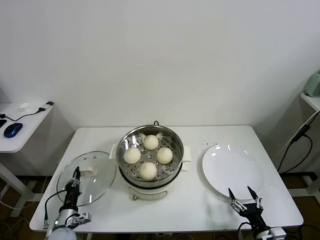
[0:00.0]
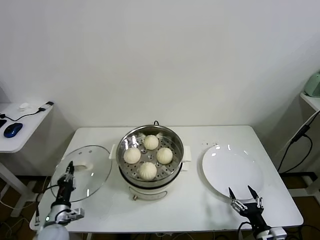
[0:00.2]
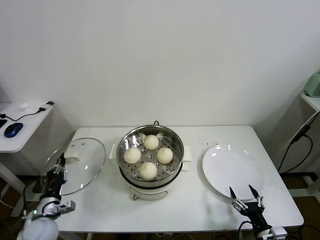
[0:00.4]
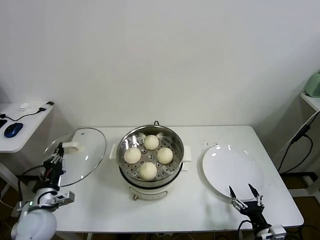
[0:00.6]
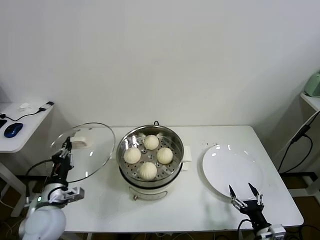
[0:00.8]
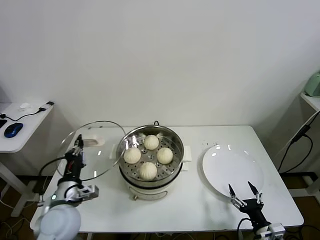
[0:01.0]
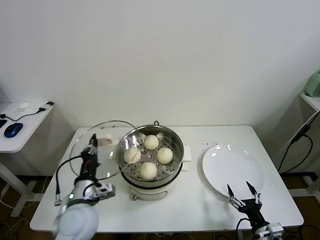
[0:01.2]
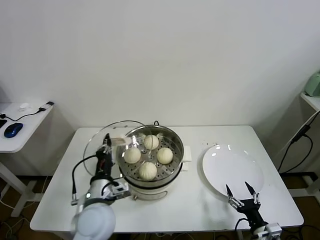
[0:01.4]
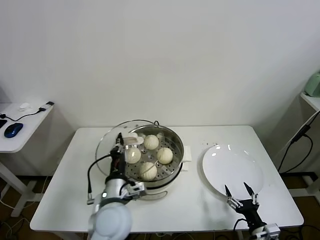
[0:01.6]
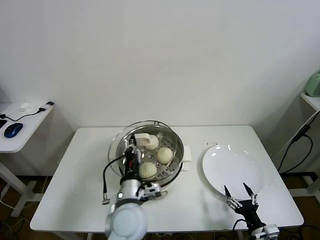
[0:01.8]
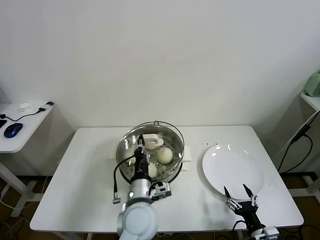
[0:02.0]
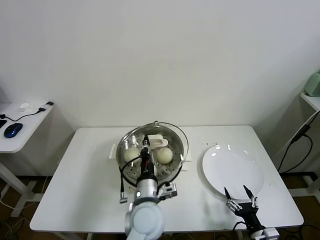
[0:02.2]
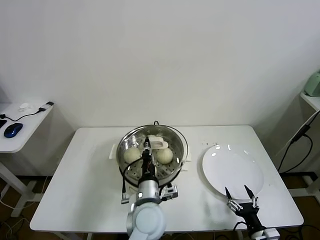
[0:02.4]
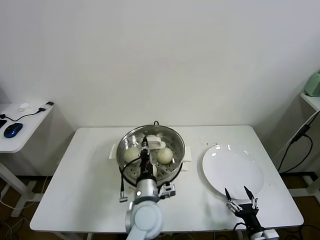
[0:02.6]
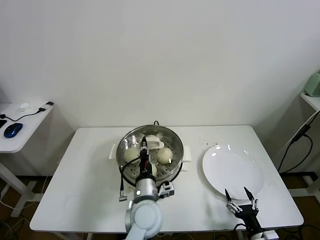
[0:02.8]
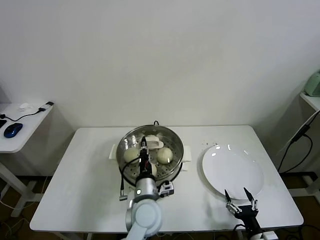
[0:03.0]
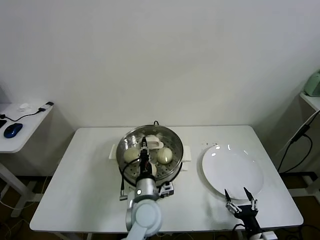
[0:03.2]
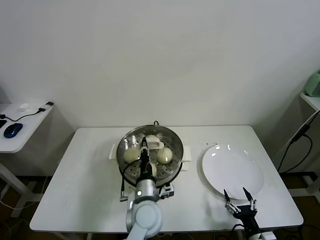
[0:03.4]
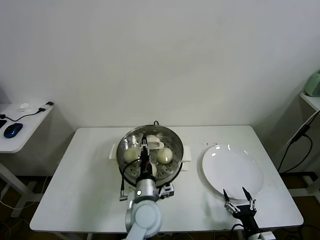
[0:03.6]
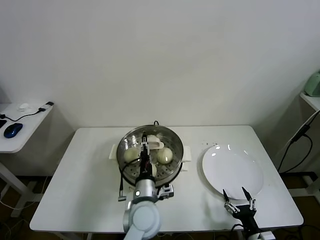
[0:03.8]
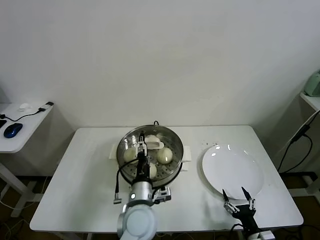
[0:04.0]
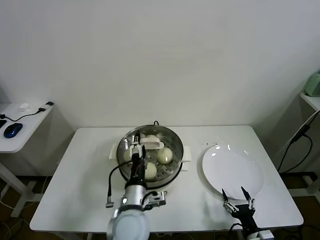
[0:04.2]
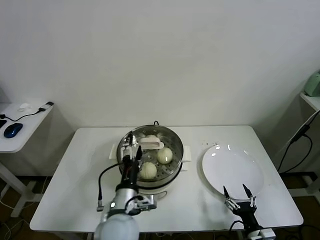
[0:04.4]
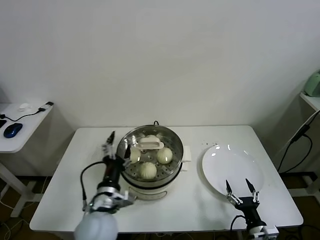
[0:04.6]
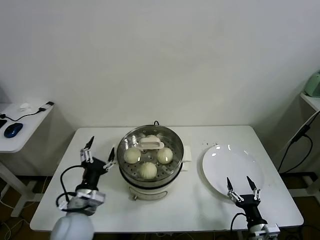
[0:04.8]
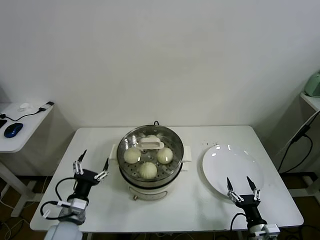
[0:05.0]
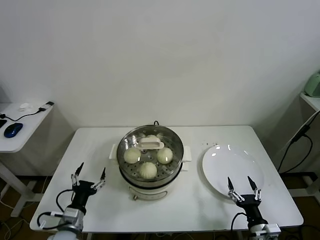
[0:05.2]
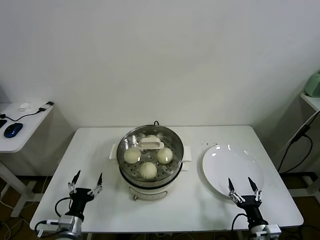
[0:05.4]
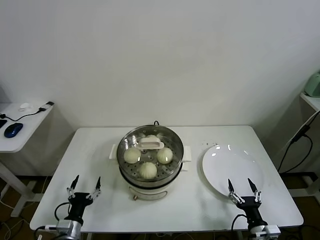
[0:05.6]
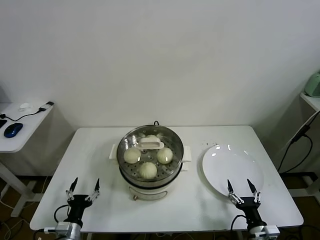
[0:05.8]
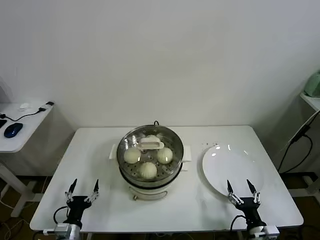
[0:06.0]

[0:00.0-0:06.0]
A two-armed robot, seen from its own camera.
Task of the whole recording: take steamed baozi put them in steamer.
Step, 0:00.0 to 0:04.0: Place the pot lid on the steamer with left gripper.
0:00.0 to 0:01.6: The left gripper shifts approximately 30 cm upward and to the right.
0:01.6 to 0:03.0: The left gripper is displaced to the right by approximately 10 cm.
0:03.0 to 0:04.4: The left gripper travels to the left by about 5 cm, and opens its fingers.
0:04.4 to 0:06.0: The left gripper travels to the left and downward by roughly 30 cm.

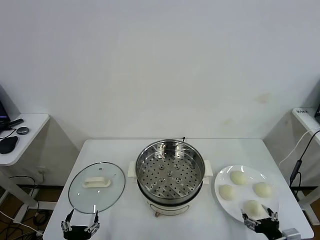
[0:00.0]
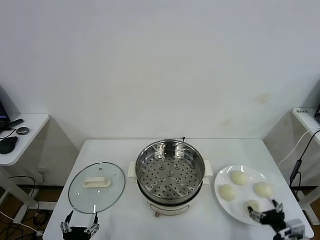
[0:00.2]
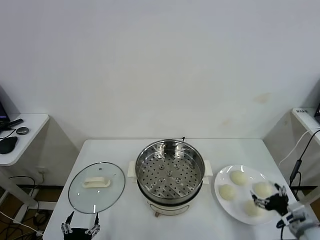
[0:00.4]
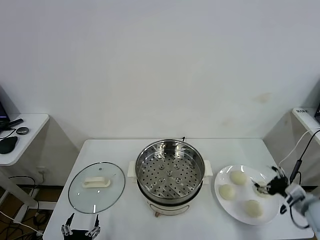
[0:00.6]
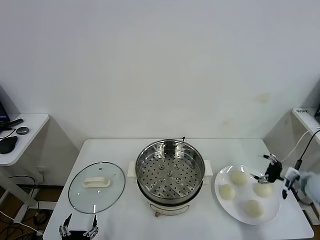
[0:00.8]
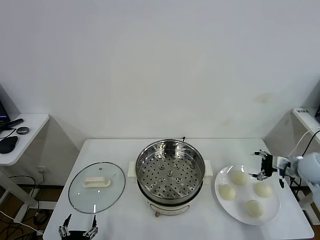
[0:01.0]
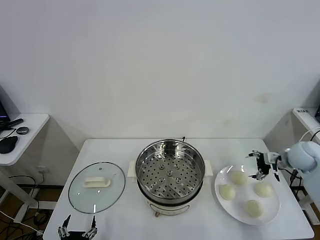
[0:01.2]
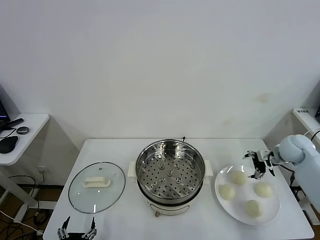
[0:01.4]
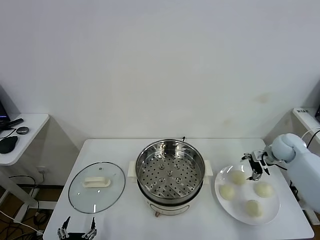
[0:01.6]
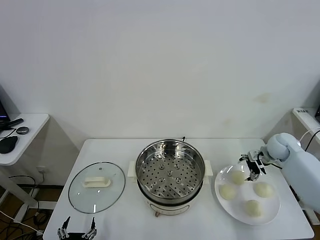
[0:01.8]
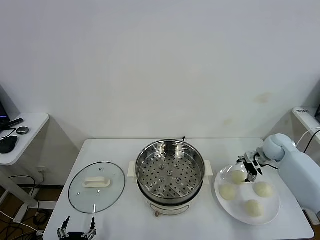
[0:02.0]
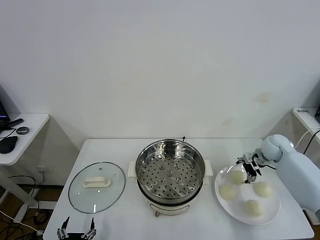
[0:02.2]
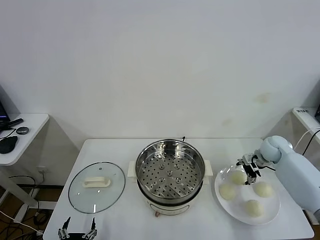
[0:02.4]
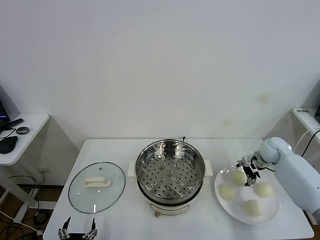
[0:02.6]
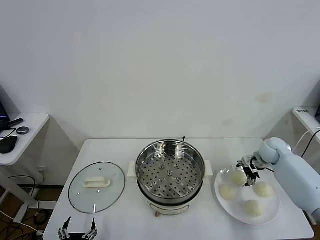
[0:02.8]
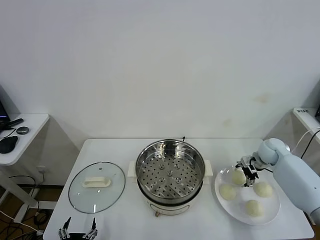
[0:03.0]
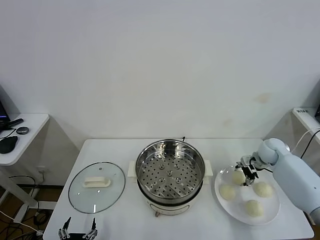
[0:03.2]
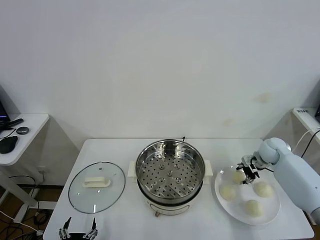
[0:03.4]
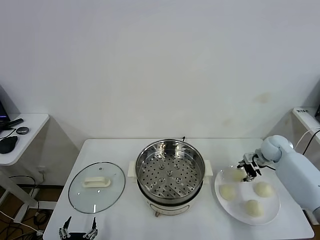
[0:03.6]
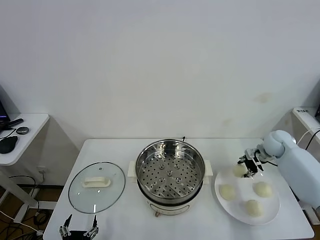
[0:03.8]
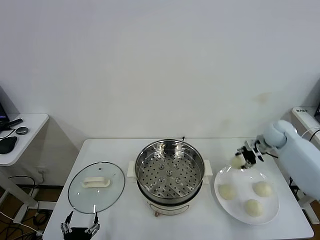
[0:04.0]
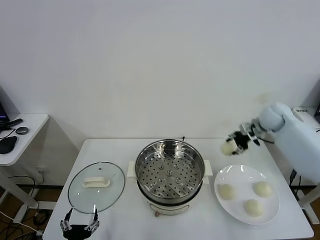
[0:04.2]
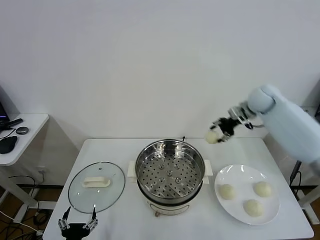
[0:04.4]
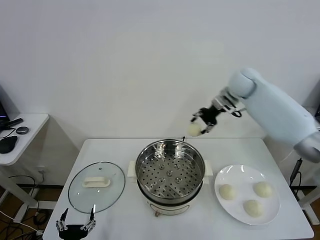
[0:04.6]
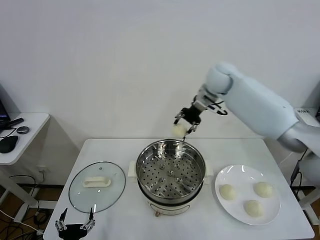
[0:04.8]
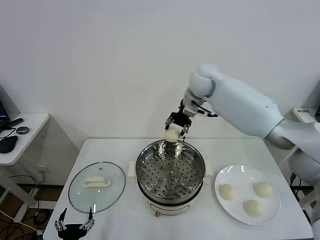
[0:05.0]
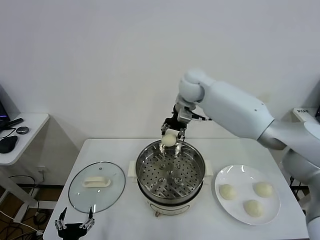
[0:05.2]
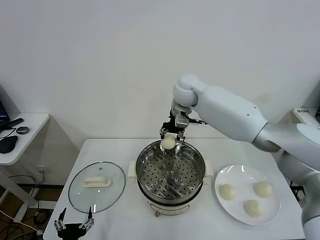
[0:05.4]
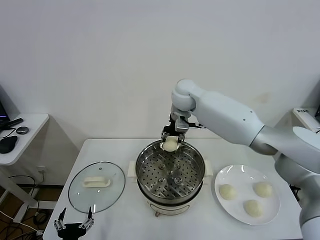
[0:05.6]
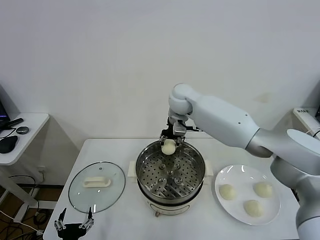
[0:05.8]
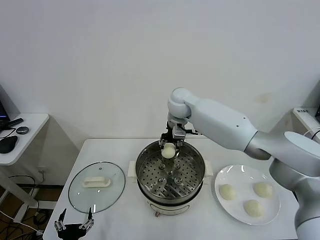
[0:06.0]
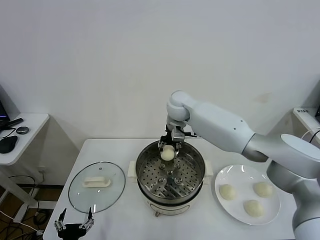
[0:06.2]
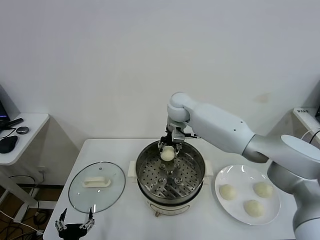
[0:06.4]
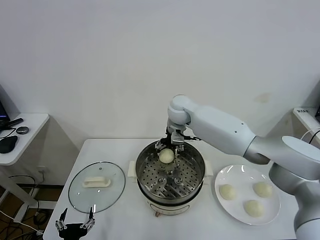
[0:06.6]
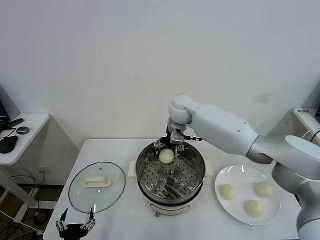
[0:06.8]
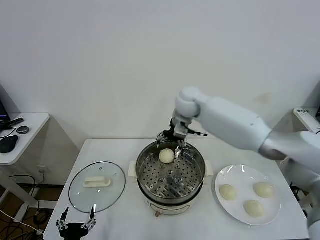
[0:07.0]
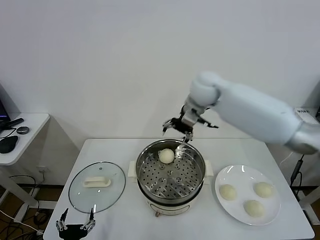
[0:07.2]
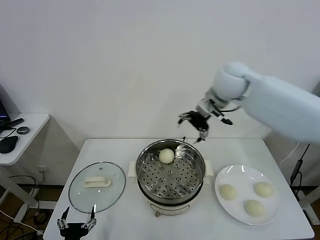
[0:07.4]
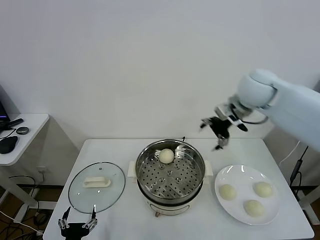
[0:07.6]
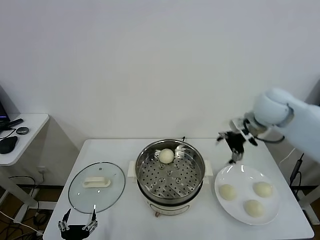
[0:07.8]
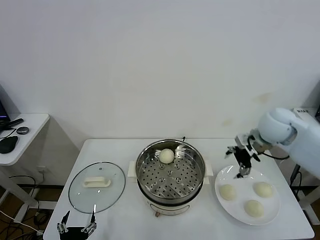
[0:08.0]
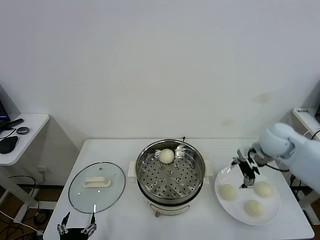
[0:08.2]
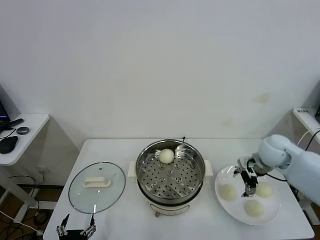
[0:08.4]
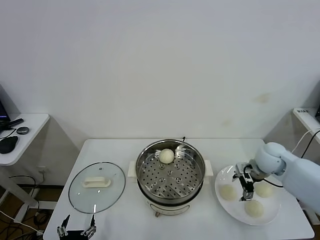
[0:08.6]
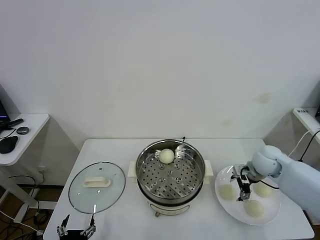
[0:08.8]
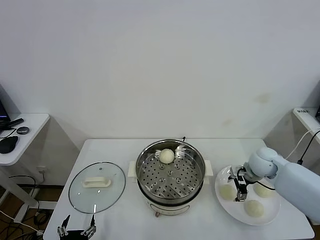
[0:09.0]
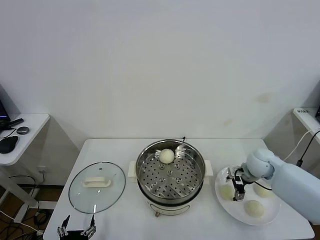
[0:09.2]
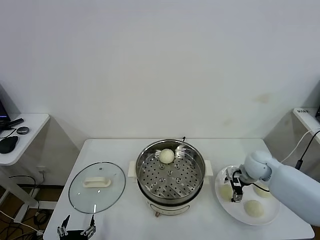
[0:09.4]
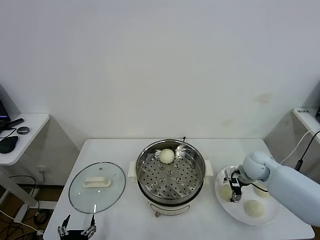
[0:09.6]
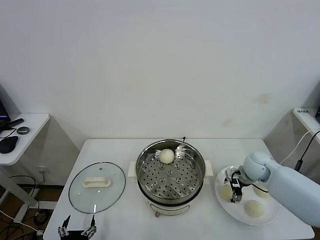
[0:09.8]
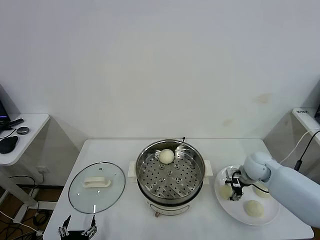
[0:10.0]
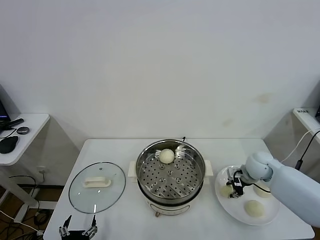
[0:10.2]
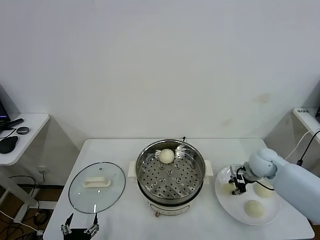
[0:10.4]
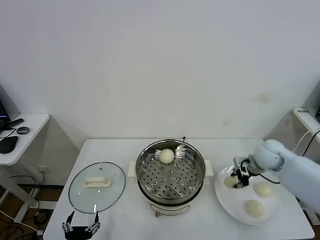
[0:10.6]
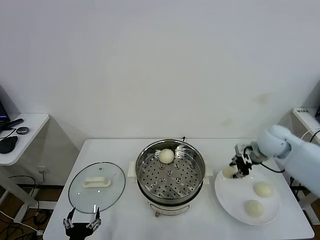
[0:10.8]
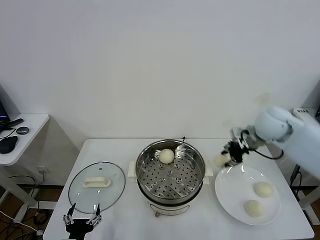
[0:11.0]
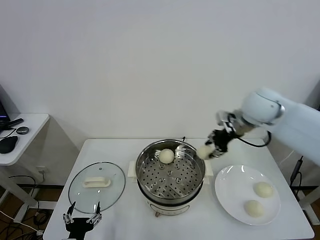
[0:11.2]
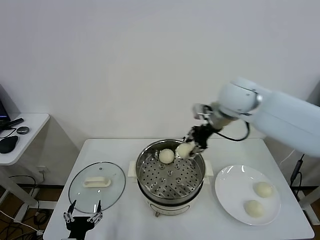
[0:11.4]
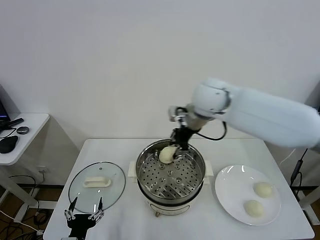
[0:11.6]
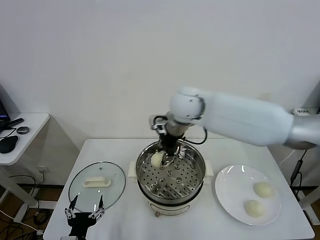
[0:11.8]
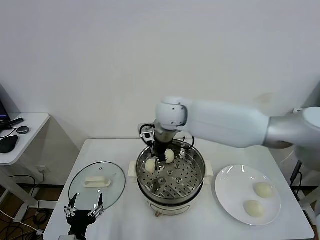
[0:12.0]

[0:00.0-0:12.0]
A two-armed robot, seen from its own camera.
Task of the whole recording: take steamed baozi put them in steamer.
Step, 0:00.0 to 0:03.2: Grasp the baozi in the plate with right gripper.
Step, 0:03.6 to 0:06.8: Place the baozi on the steamer with right gripper.
Step, 0:07.0 to 0:10.0: Grasp the baozi in the plate with right gripper.
0:01.6 to 0:03.0: The right gripper moves some 5 cm.
0:03.0 to 0:04.4: The right gripper shifts approximately 20 cm upward and to the left, and closes its fingers.
0:04.4 to 0:06.0: The right gripper shifts some 25 cm to the left.
0:06.0 to 0:07.6: The right gripper shifts some 25 cm to the right, upward and backward, and opens up.
0:07.6 to 0:09.0: The right gripper goes about 25 cm downward.
0:09.0 to 0:10.4: The right gripper closes.
0:10.4 to 0:12.0: The left gripper moves about 5 cm; the right gripper shifts about 40 cm to the left and upward.

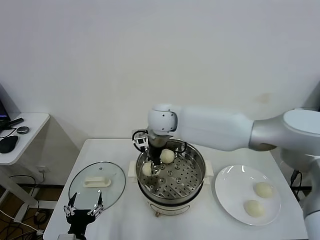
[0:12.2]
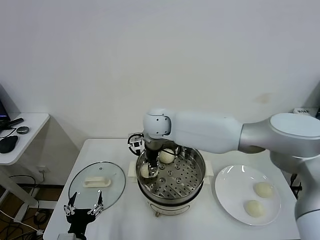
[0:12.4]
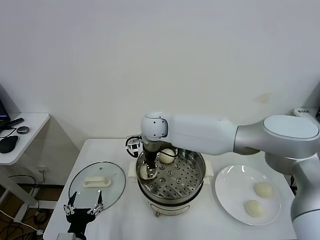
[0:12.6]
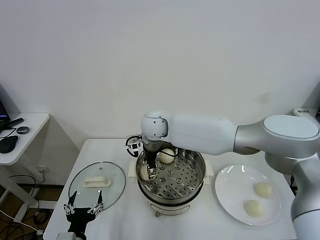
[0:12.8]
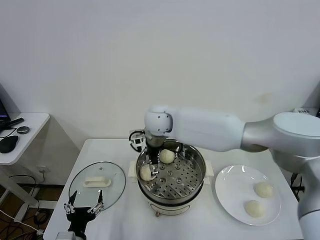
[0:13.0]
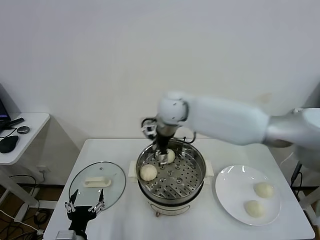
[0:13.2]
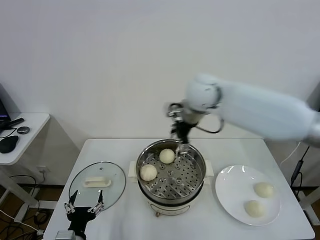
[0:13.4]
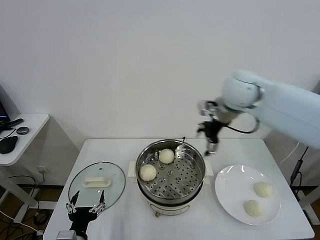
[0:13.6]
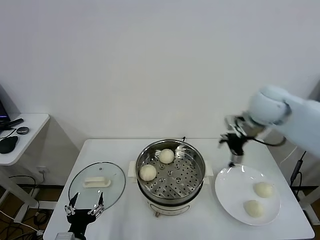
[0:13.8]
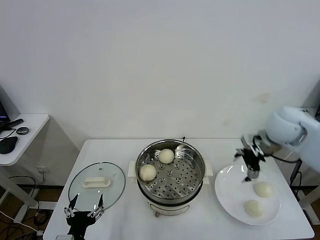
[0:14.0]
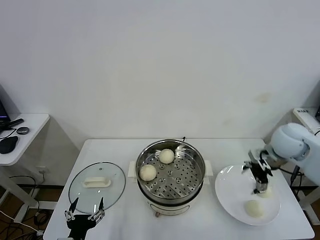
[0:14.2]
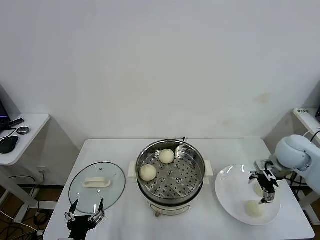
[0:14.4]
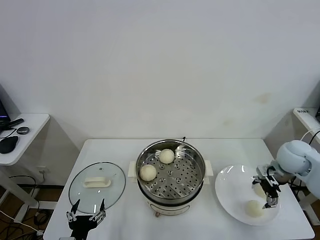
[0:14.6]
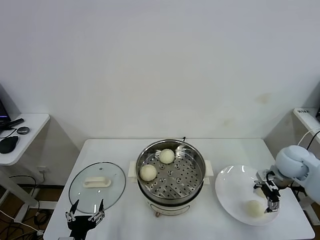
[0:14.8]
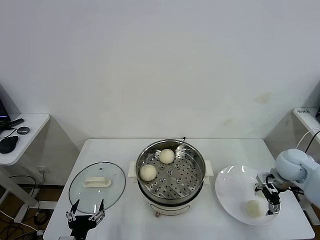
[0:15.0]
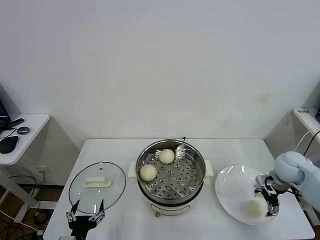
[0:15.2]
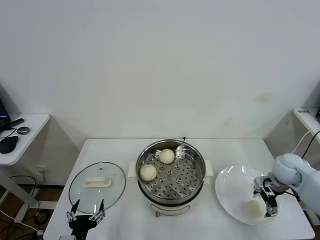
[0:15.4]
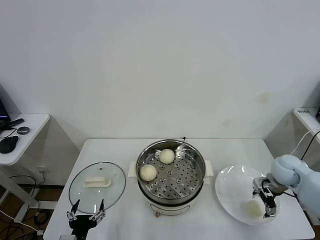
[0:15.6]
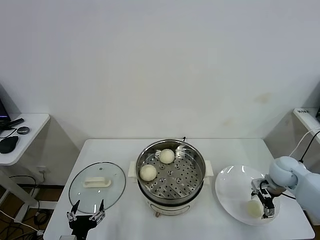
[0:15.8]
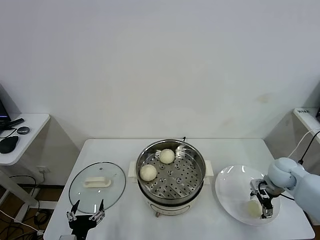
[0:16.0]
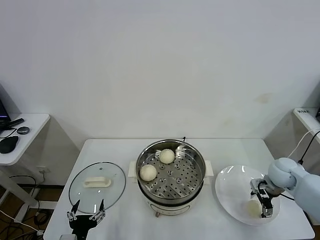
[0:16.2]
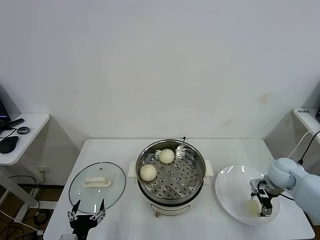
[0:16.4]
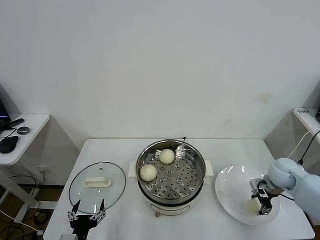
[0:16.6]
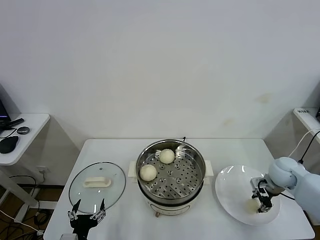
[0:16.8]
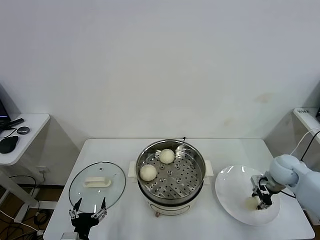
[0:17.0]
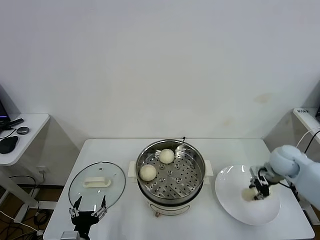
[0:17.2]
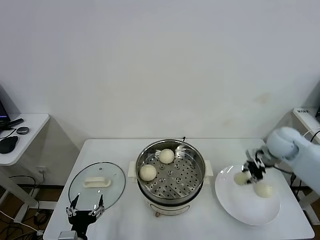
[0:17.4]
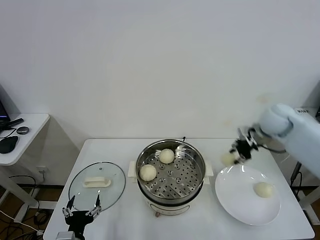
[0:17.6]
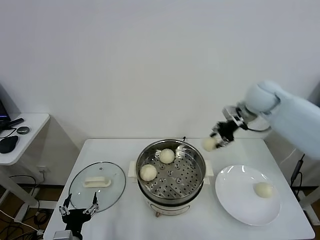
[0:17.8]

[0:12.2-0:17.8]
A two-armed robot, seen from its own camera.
Task of the whole recording: take steamed baozi put them in steamer.
Step, 0:13.2 to 0:16.4: Grasp the baozi in the plate with right gripper.
0:12.2 to 0:13.6: The right gripper moves to the right and upward, approximately 25 cm, and opens up.
0:13.6 to 0:15.0: The right gripper is displaced downward and to the right by about 30 cm.
0:15.0 to 0:16.4: The right gripper heads downward, covering some 5 cm.
0:16.4 to 0:17.8: The right gripper goes some 30 cm upward, forward and to the left, and closes up.
